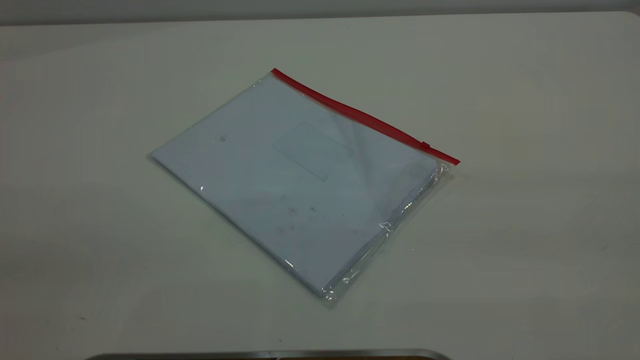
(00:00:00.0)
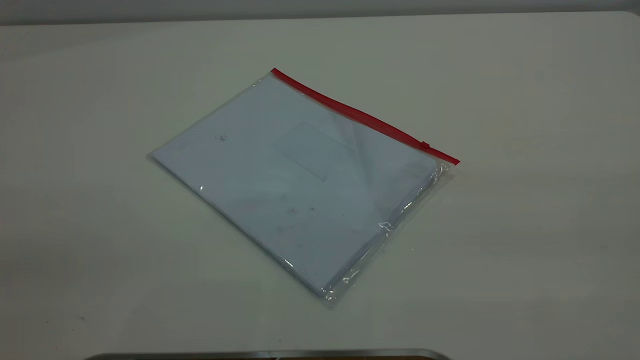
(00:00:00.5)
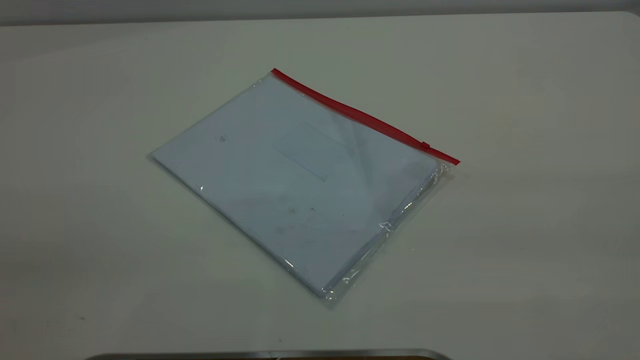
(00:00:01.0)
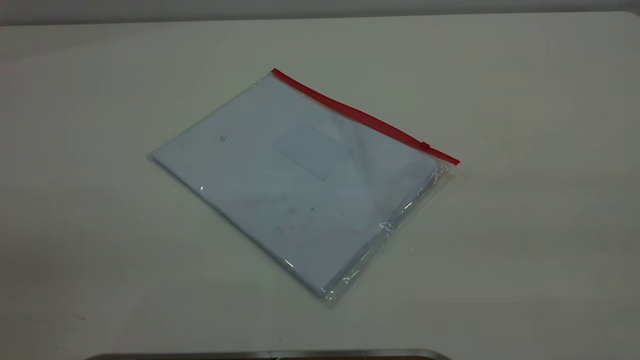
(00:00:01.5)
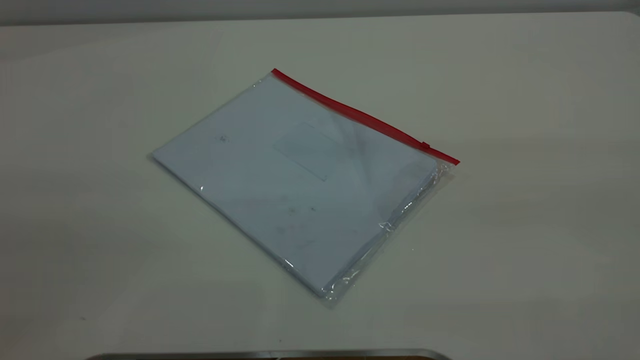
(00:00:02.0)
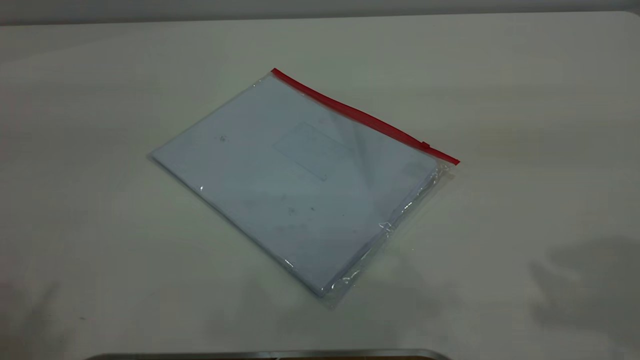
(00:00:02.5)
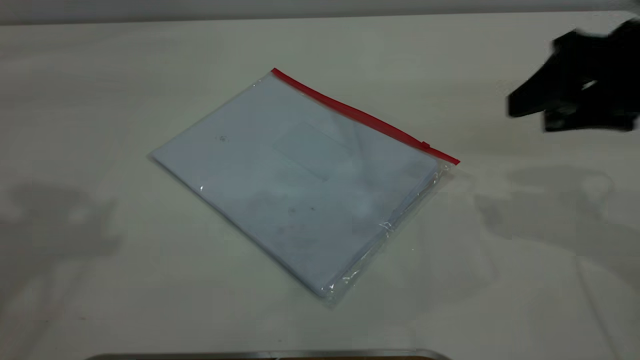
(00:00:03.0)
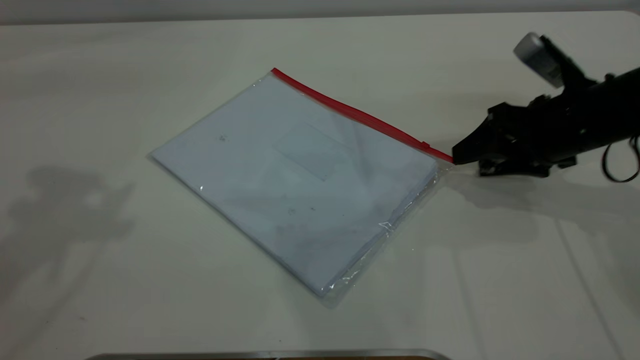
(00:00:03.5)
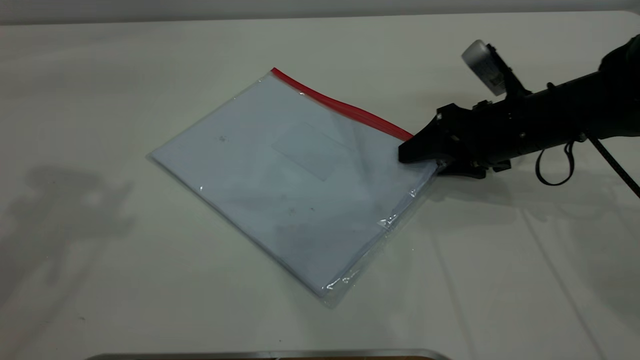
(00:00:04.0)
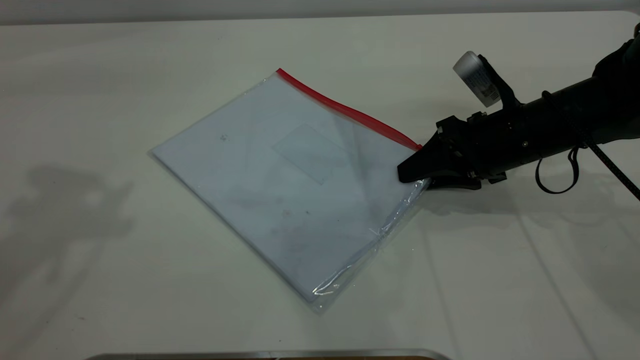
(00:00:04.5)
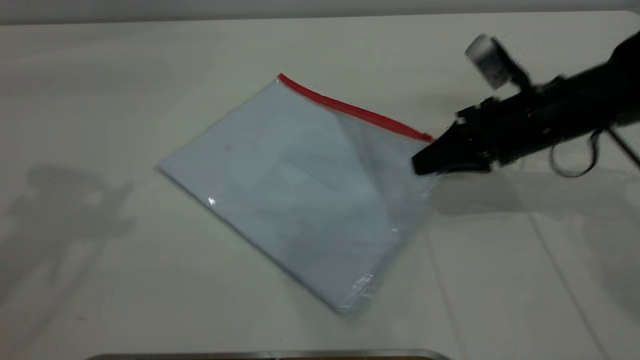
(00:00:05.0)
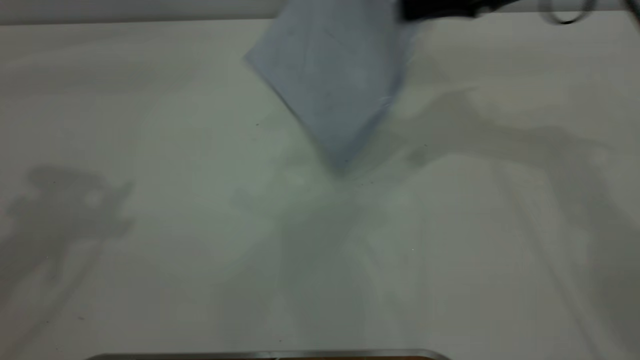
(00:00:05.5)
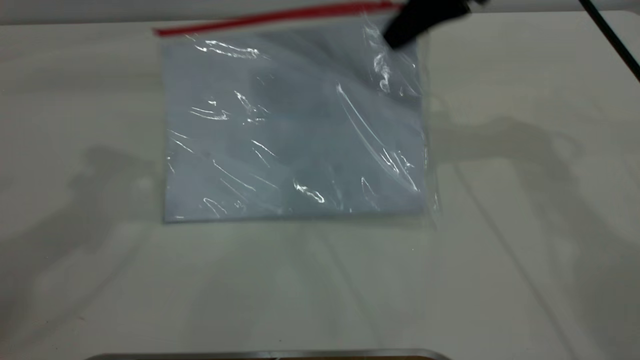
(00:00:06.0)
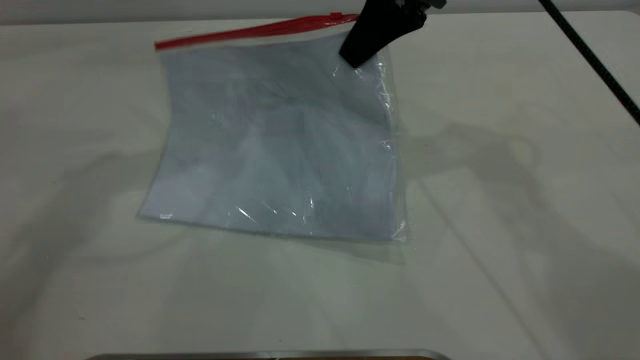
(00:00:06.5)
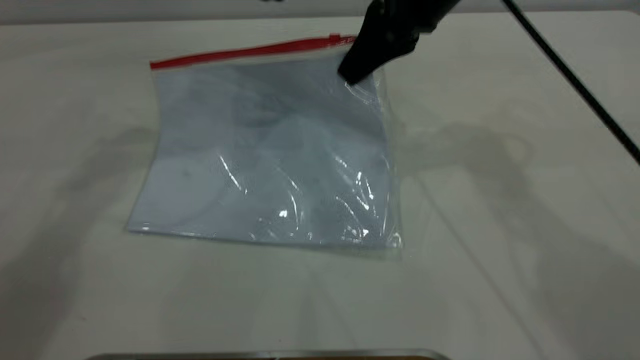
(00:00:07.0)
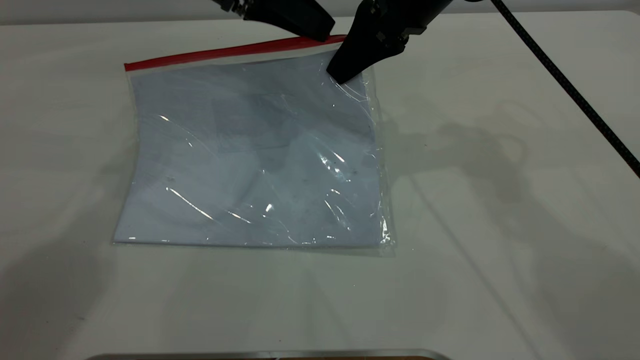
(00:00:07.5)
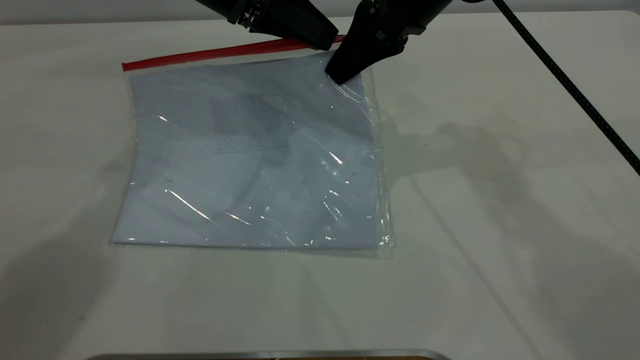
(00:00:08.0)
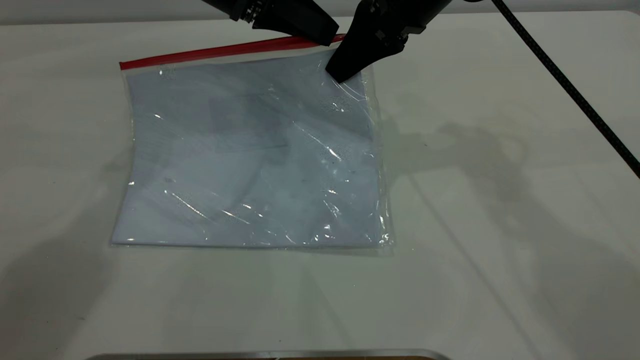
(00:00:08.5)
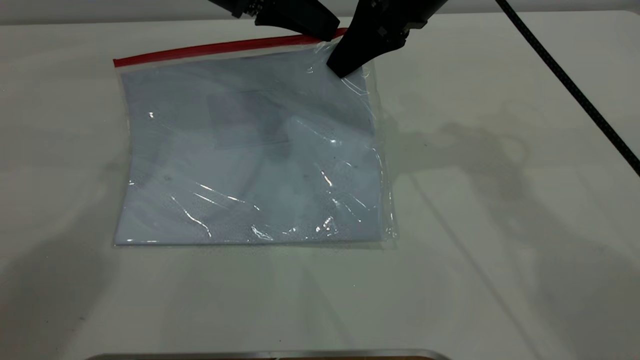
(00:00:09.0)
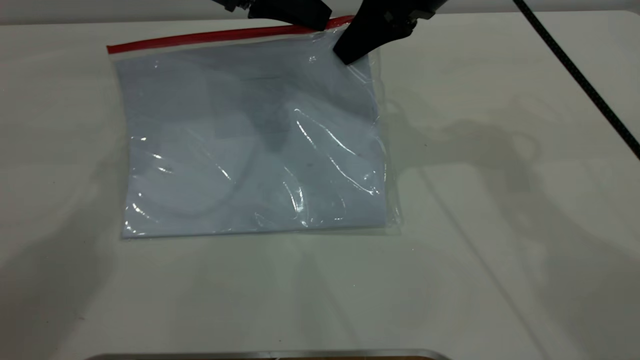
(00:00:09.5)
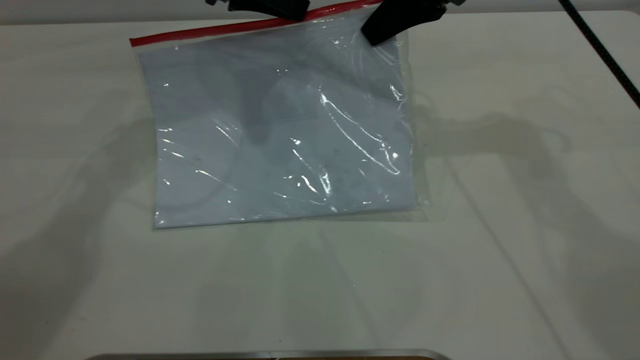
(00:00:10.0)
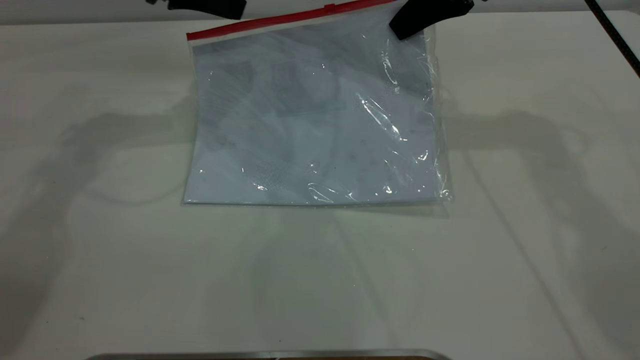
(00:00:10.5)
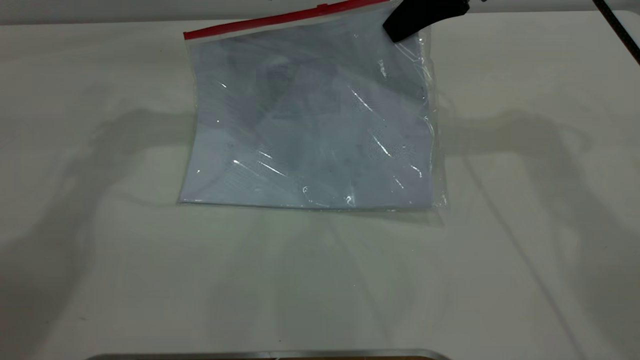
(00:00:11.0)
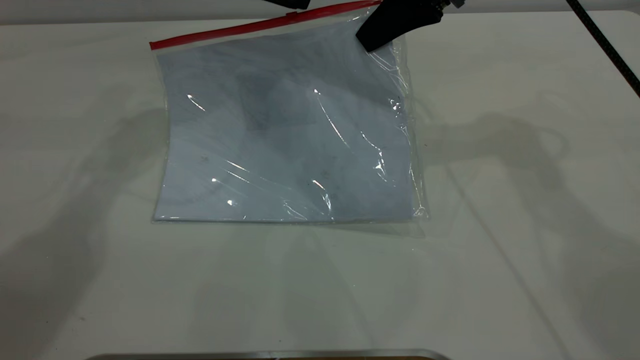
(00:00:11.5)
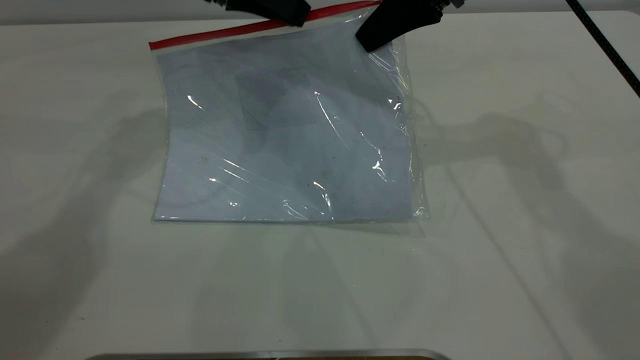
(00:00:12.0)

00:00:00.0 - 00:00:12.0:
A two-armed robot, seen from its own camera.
Step, 00:00:00.0 - 00:00:06.5: Pick up the transparent plastic bag with the right gripper.
00:00:02.0 - 00:00:04.0: The left gripper goes roughly 30 cm forward. Meanwhile the right gripper shifts some 50 cm downward and forward.
00:00:04.0 - 00:00:06.0: The right gripper is displaced upward by roughly 20 cm, and closes. Meanwhile the left gripper changes place by approximately 5 cm.
00:00:06.0 - 00:00:08.0: The left gripper heads downward, to the right and forward, covering some 20 cm; the right gripper moves to the left, about 5 cm.
00:00:08.0 - 00:00:10.0: The right gripper goes approximately 5 cm to the right, while the left gripper closes its fingers.
00:00:10.0 - 00:00:12.0: The left gripper opens.

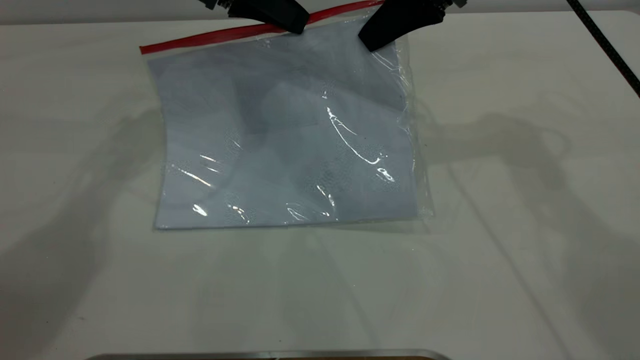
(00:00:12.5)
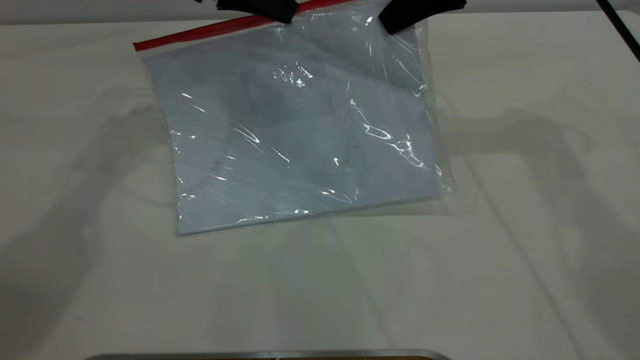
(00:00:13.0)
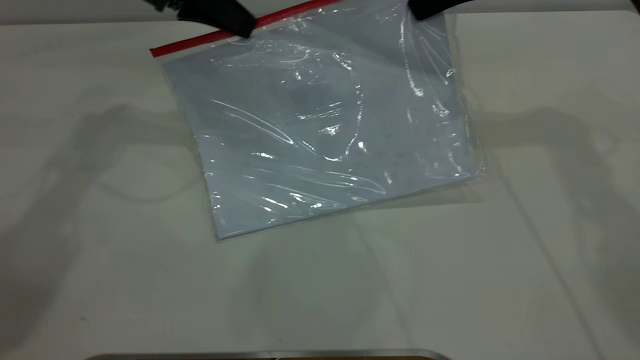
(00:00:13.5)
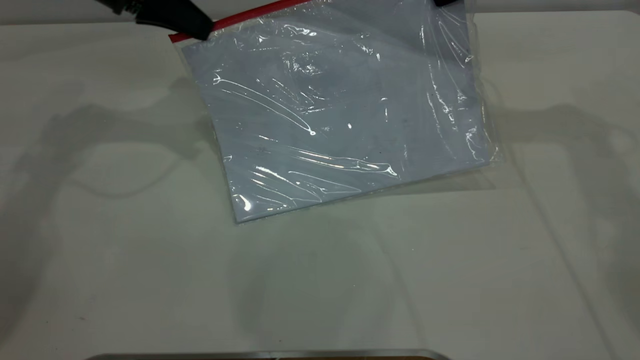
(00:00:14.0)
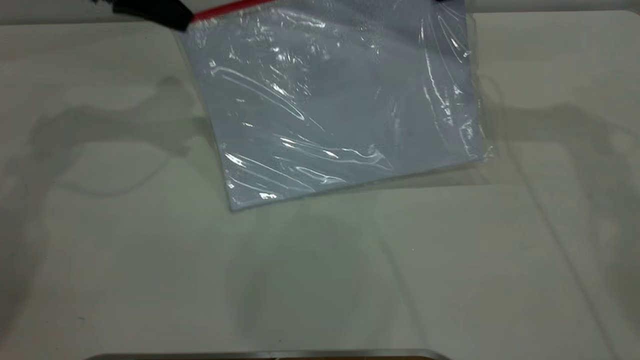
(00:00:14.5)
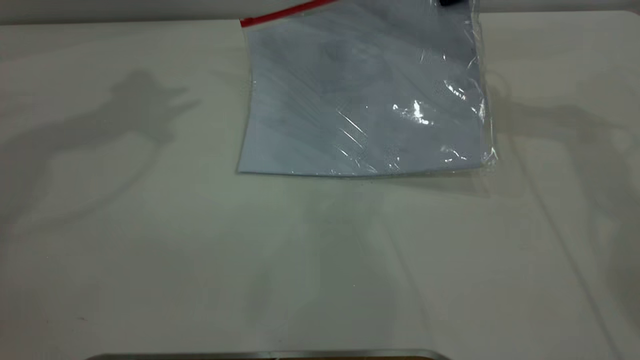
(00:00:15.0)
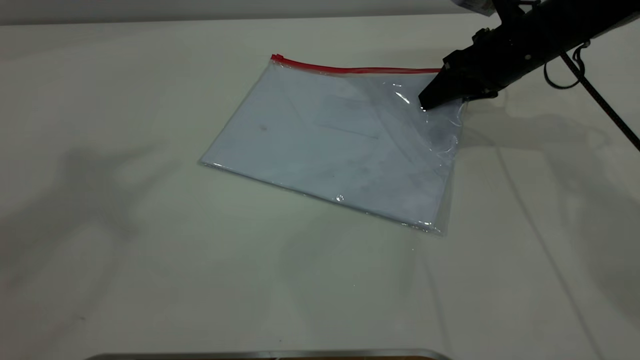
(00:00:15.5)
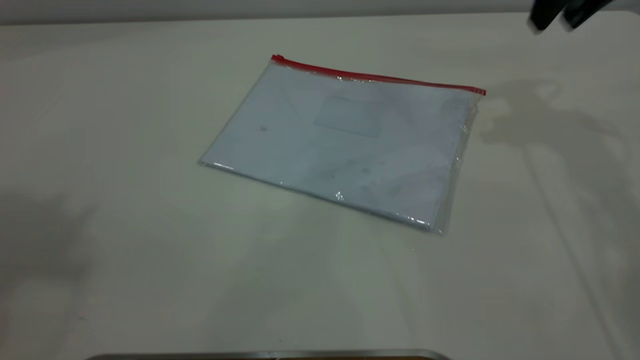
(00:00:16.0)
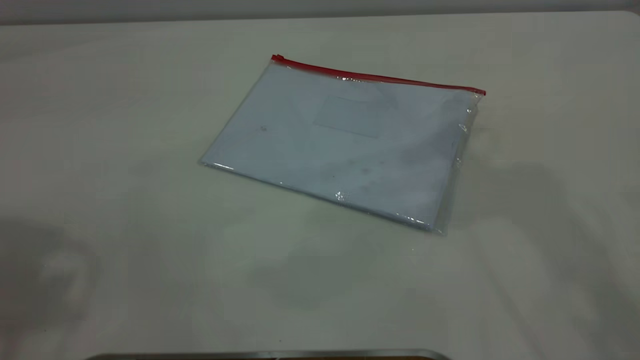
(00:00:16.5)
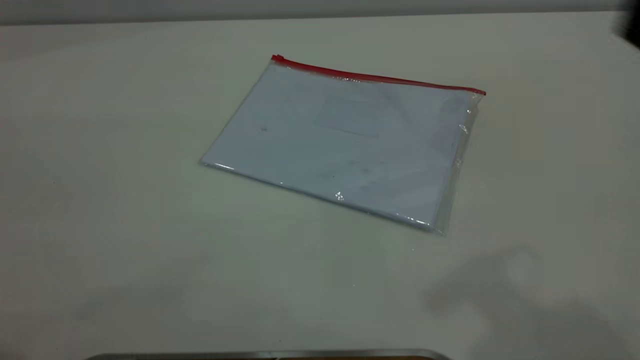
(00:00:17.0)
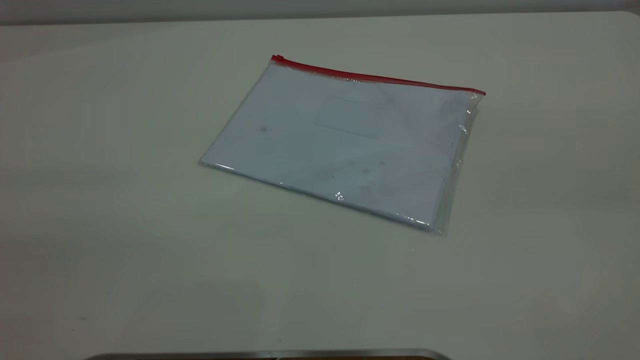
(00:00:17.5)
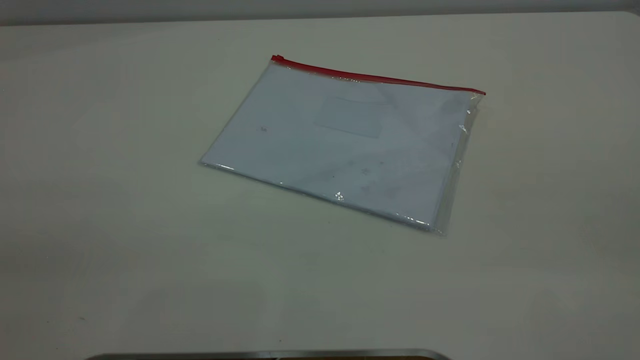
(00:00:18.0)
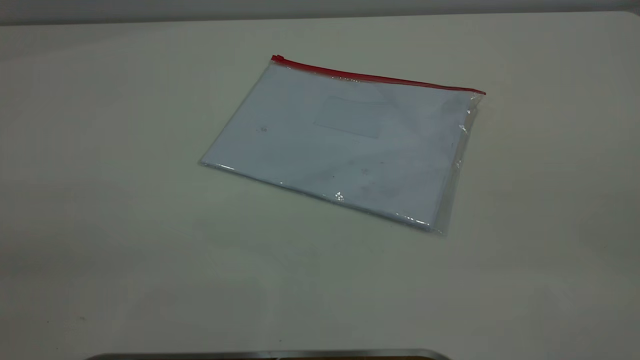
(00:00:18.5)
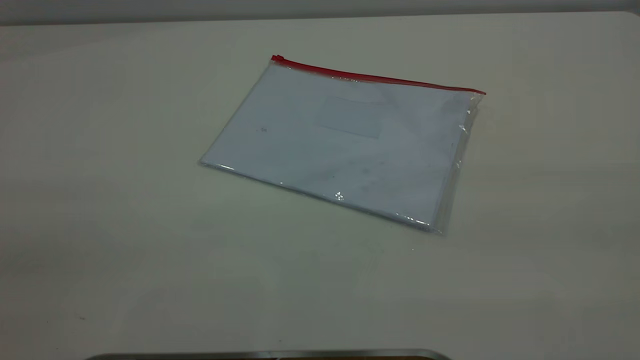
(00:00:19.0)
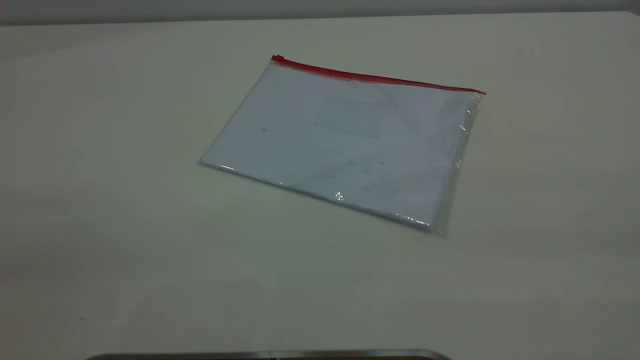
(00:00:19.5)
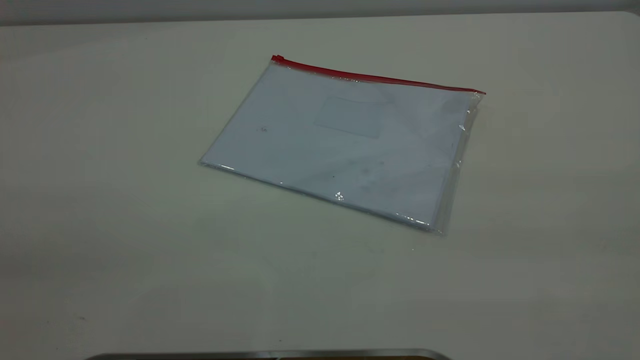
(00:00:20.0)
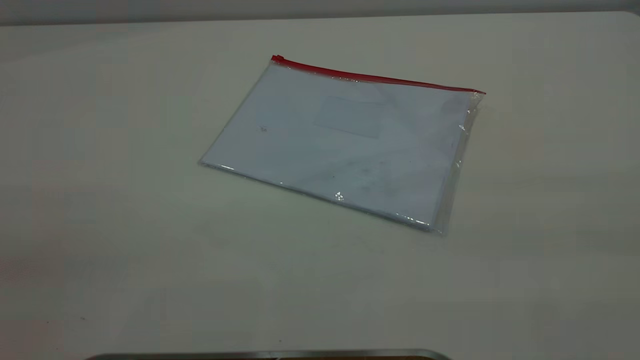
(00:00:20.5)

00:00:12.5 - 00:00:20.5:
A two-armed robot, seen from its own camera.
Step, 00:00:12.5 - 00:00:14.5: Pulling up the zipper on the transparent plastic bag with the left gripper to close it.
Step, 00:00:15.0 - 00:00:16.0: Place the transparent plastic bag.
00:00:12.5 - 00:00:14.5: The right gripper travels to the right by roughly 10 cm. The left gripper heads to the left, covering roughly 10 cm.
00:00:14.5 - 00:00:16.5: The left gripper is displaced backward and upward by roughly 35 cm, and opens, while the right gripper travels upward and backward by about 20 cm, and opens its fingers.
